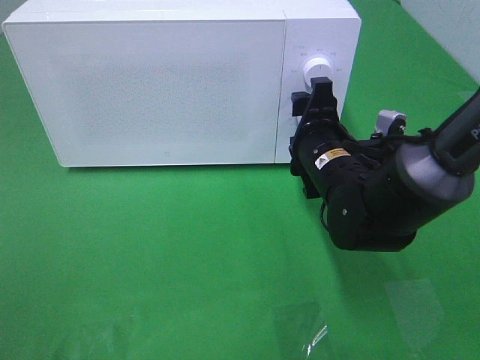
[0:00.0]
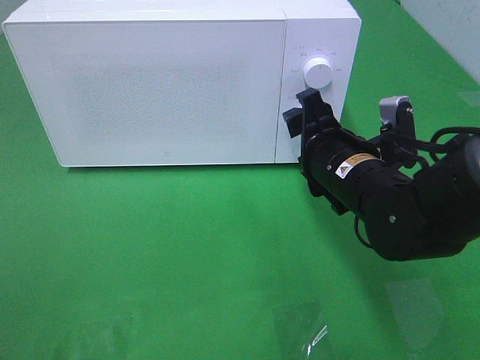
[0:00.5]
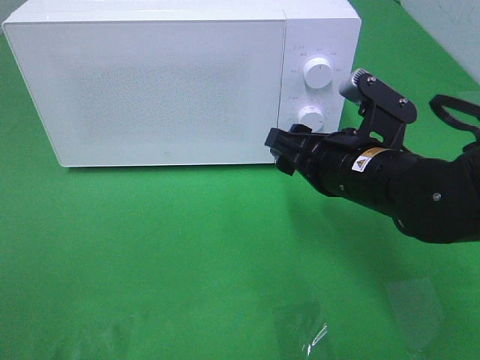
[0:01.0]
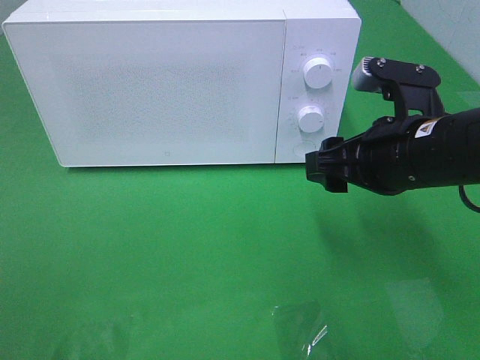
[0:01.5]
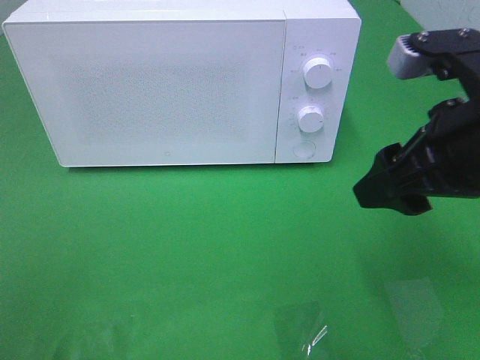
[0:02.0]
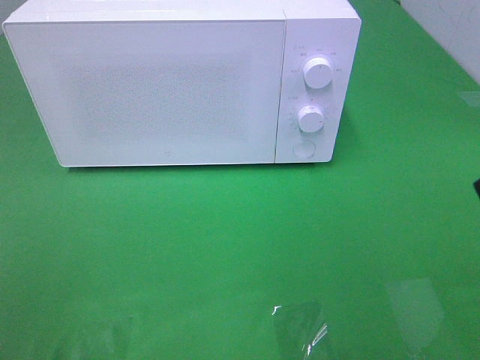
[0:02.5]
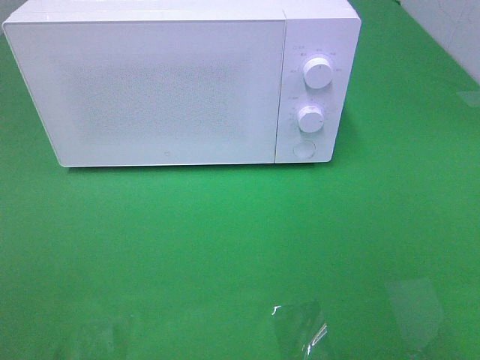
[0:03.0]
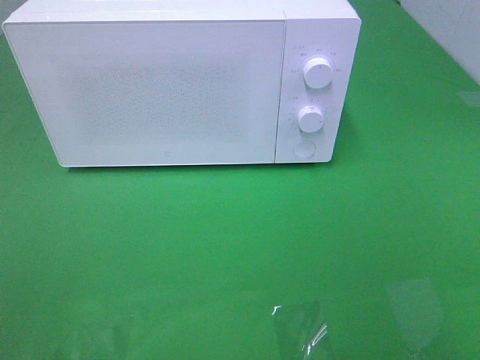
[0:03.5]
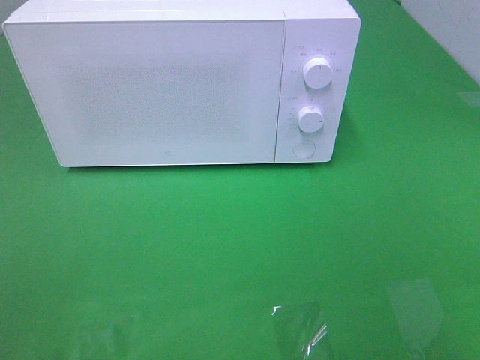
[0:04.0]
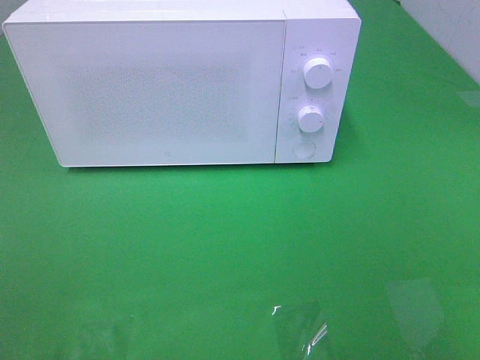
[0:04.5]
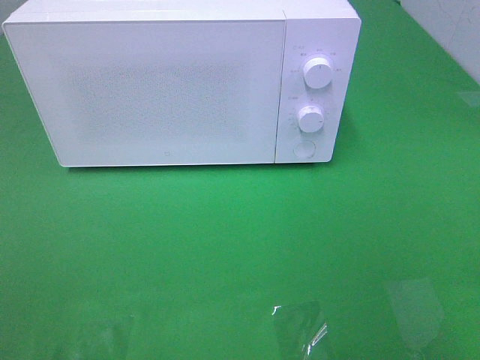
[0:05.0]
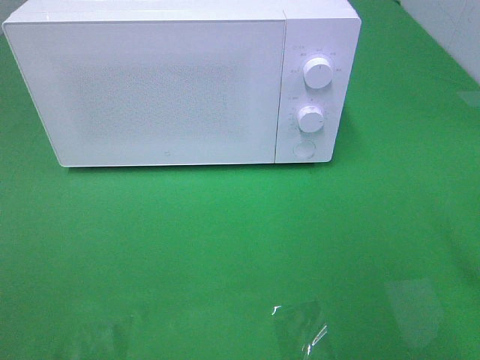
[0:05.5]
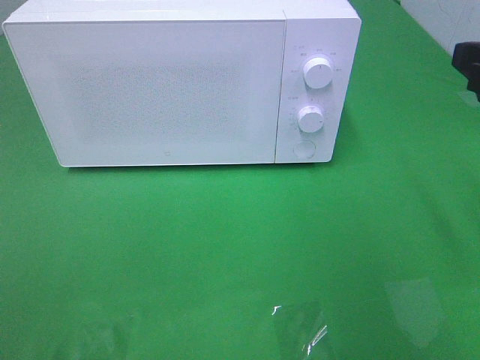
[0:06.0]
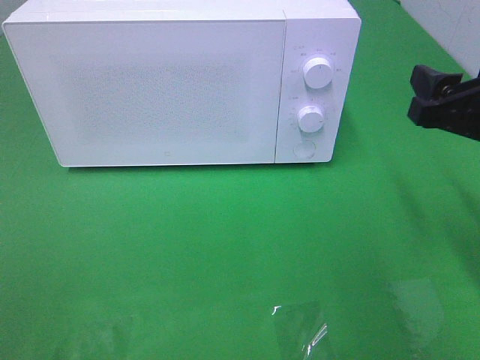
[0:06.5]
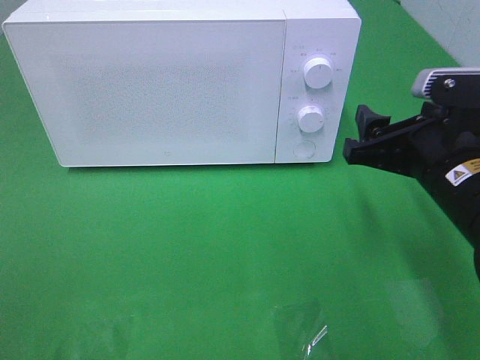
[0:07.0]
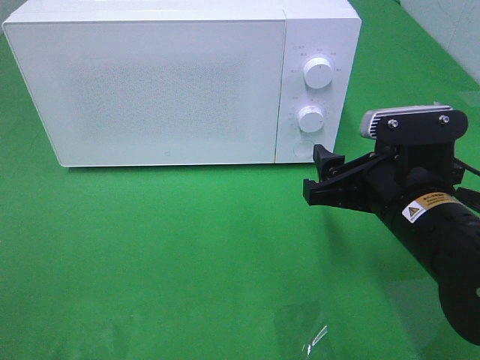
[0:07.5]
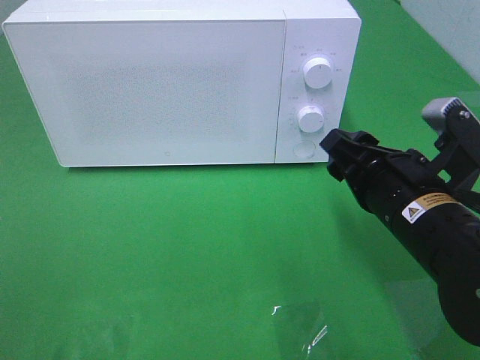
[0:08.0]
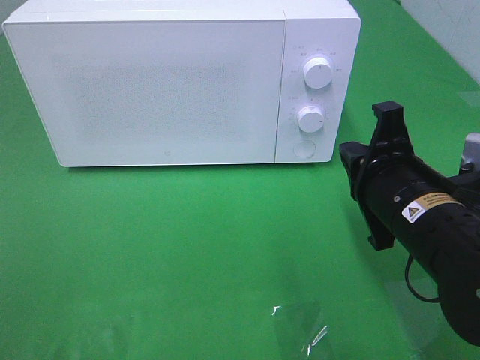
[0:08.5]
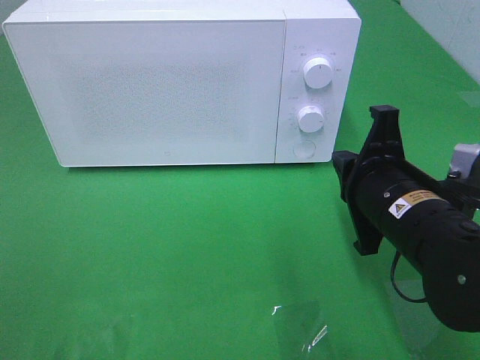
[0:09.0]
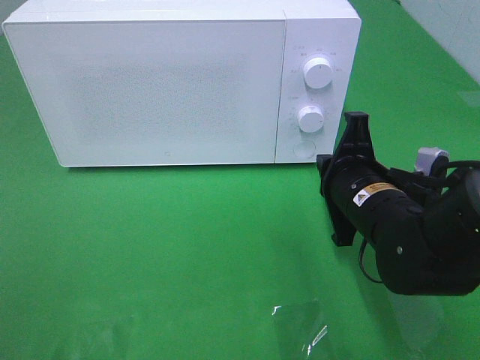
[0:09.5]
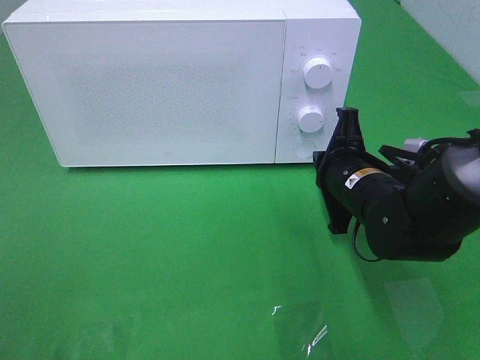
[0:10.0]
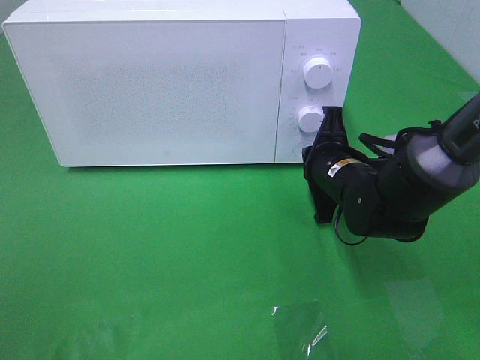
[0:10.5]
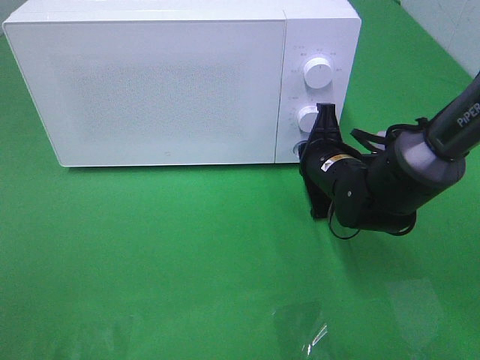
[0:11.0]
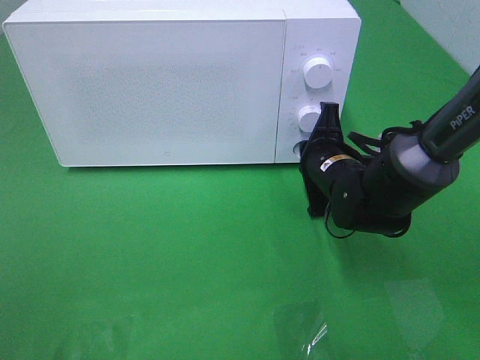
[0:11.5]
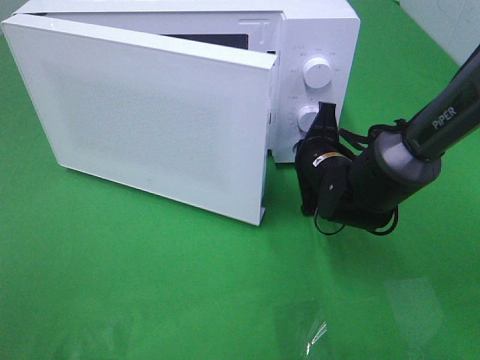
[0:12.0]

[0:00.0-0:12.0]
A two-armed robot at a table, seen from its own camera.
Task of the whole recording: Heat the burger.
0:00.0 to 0:02.0: The right gripper is displaced upward, backward and to the right by some 20 cm.
0:02.0 to 0:04.0: The right gripper heads backward and to the right, covering some 20 cm.
0:06.0 to 0:08.0: The right gripper travels downward and to the left by roughly 15 cm.
0:08.0 to 0:10.0: The right gripper heads forward and downward, covering some 10 cm, and closes.
0:10.0 to 0:12.0: The right gripper shifts approximately 5 cm forward.

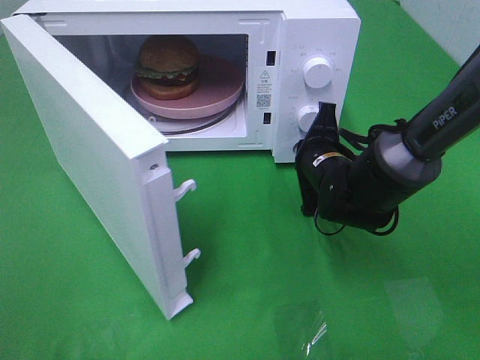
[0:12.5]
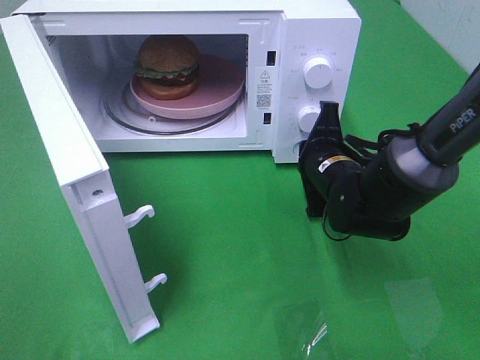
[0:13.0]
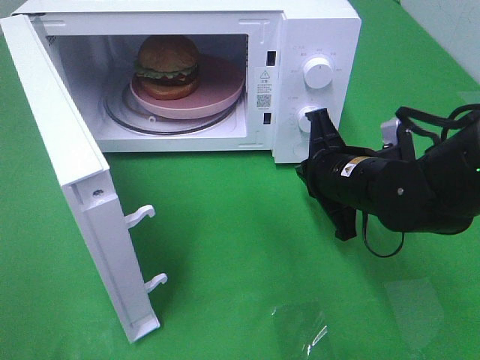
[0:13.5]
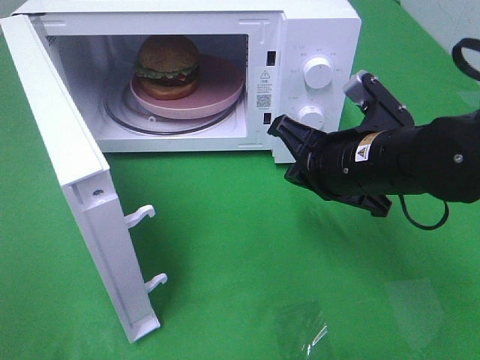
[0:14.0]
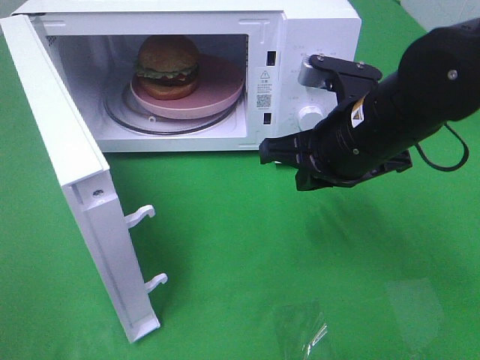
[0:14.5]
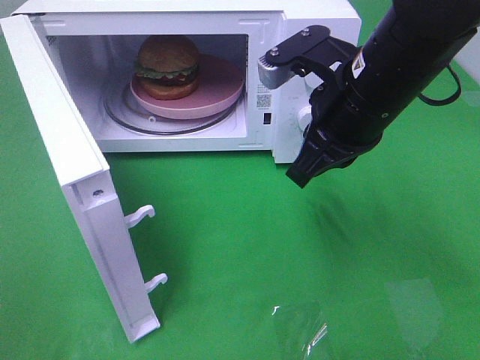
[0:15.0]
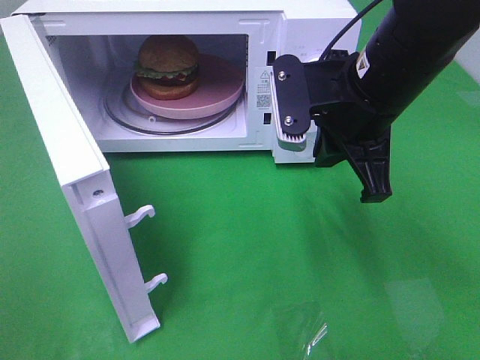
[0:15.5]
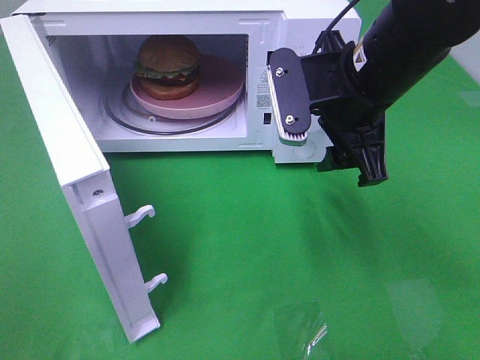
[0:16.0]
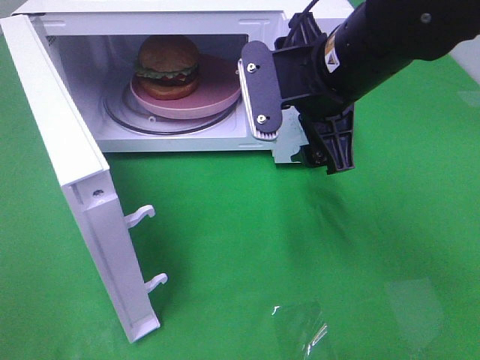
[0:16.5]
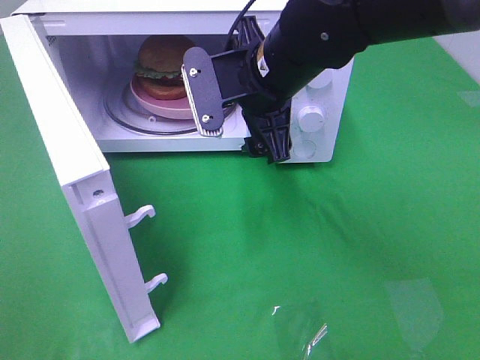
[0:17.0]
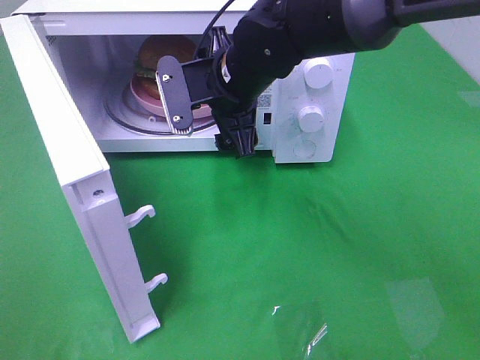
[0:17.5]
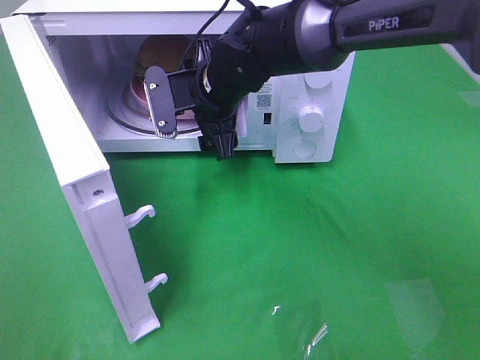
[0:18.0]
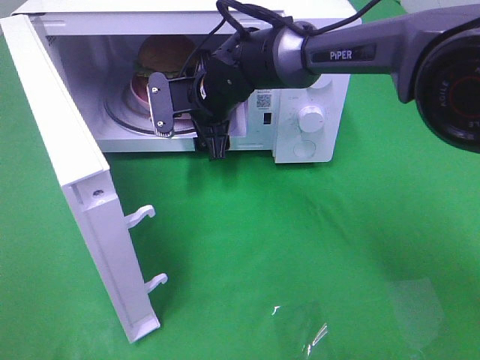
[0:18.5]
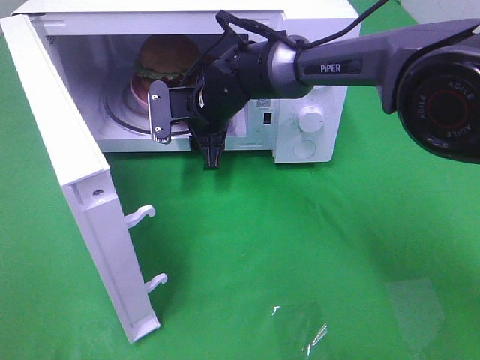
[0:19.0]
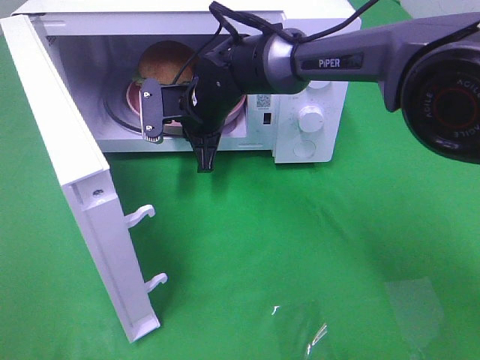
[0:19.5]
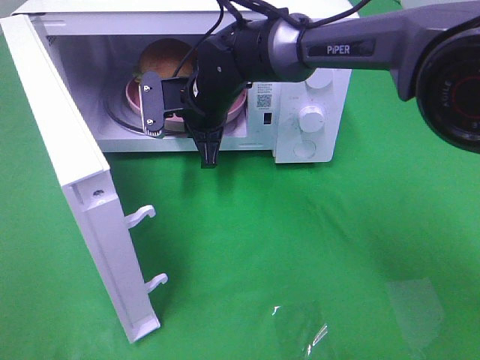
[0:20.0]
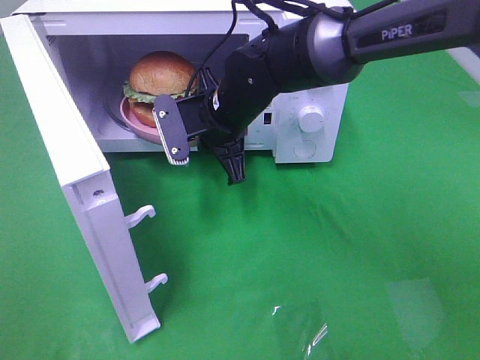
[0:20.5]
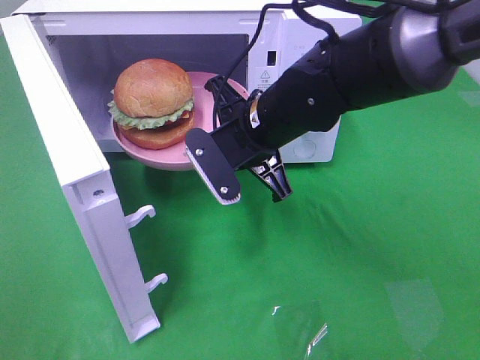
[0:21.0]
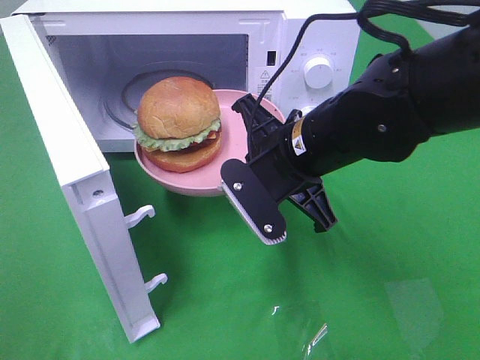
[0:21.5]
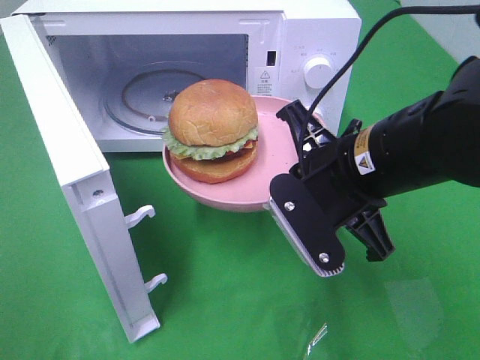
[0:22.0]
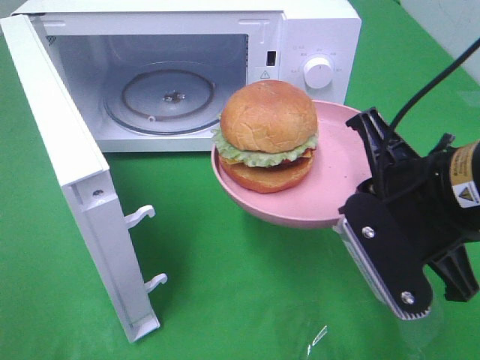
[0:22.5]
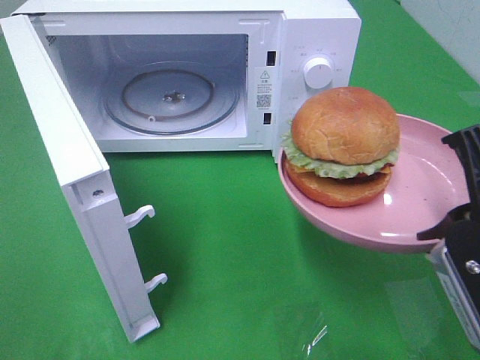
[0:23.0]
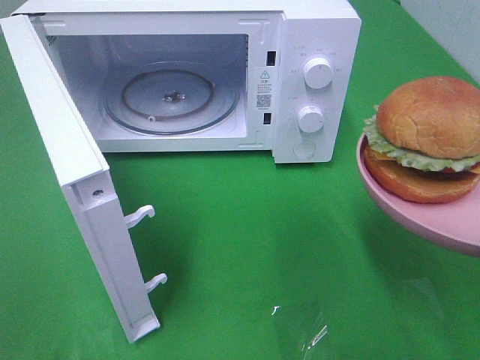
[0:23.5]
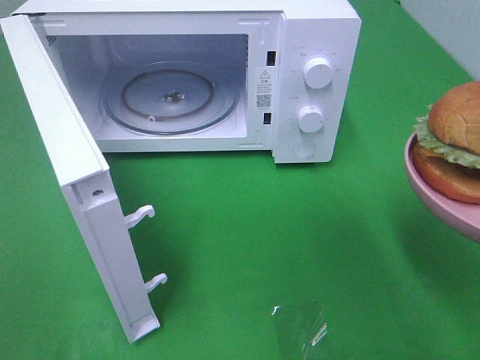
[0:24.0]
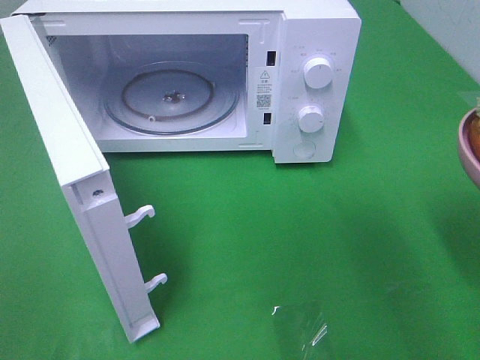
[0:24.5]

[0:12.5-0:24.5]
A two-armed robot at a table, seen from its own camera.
Task of the whole recording: Heat the burger.
Step, 0:13.5 to 0:19.0: Right hand: grab the plate with the hamburger.
0:12.5 to 0:14.5: The right gripper shifts some 15 cm upward and backward.
0:14.5 to 0:16.5: The right gripper moves about 5 cm, and opens.
0:16.5 to 0:18.5: The right gripper shifts some 20 cm forward, to the left and downward.
0:18.5 to 0:20.5: The right gripper travels backward by about 5 cm, and closes.
0:20.5 to 0:22.5: The right gripper moves backward and to the right, roughly 25 cm.
0:22.5 to 0:24.5: The right gripper moves to the right and backward, about 15 cm.

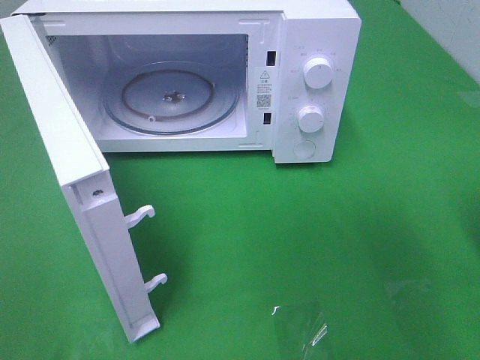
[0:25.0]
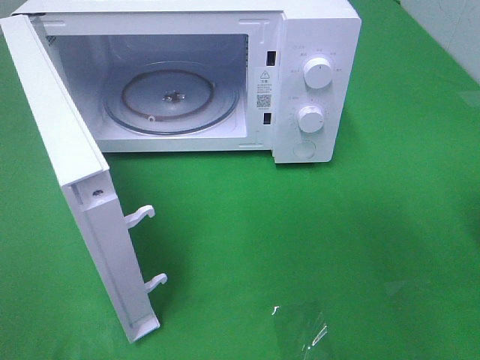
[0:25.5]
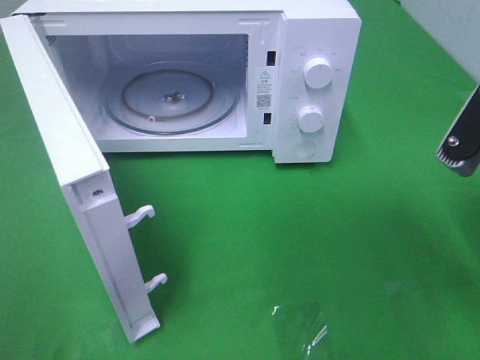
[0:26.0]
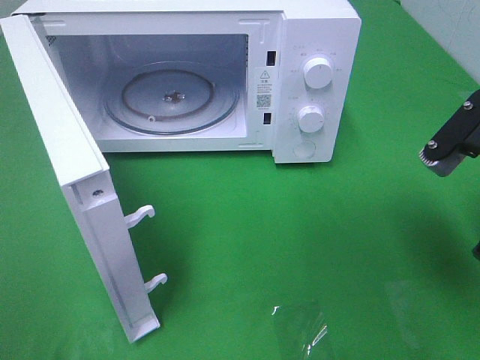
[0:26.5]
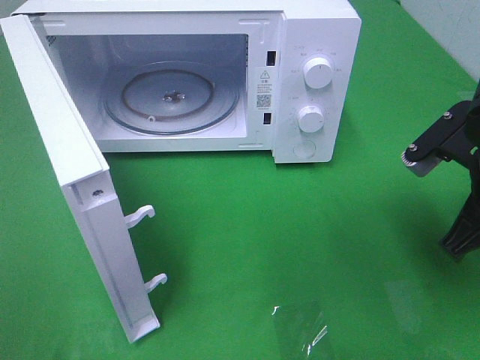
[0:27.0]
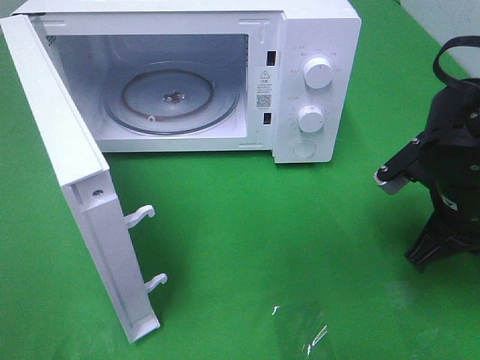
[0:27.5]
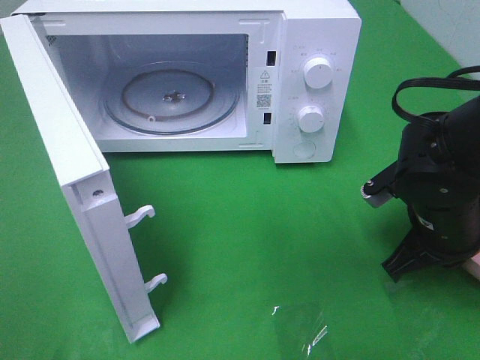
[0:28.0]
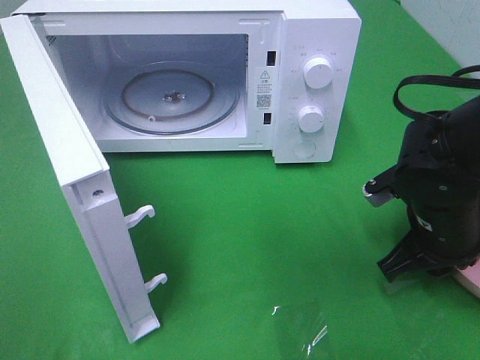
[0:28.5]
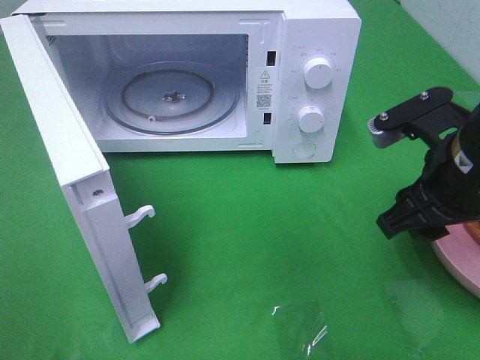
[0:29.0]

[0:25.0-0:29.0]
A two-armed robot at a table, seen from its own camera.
Task of the whole recording: Heat the burger.
Step, 0:25.0 to 0:28.5: Right hand: place the plate on the table.
0:25.0 to 0:27.0: The right gripper travels forward and downward by some 15 cm.
0:27.0 to 0:29.0: The right gripper goes downward and returns, some 10 cm each way, and opens.
